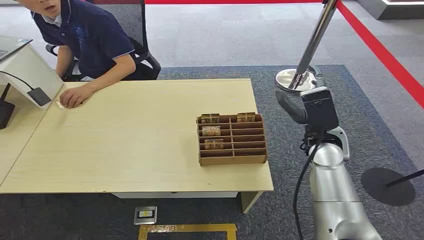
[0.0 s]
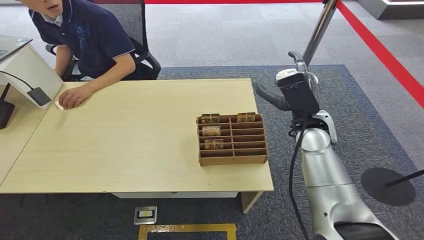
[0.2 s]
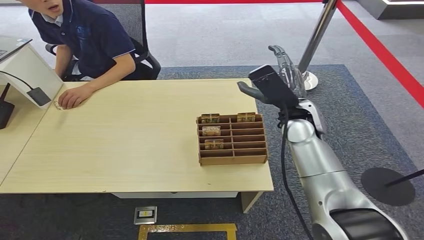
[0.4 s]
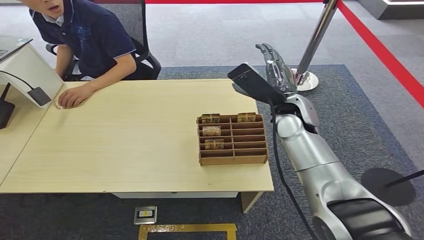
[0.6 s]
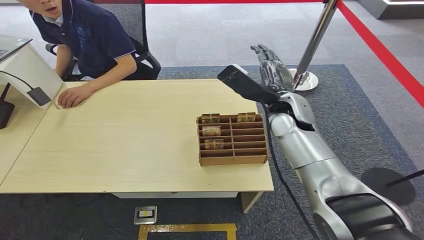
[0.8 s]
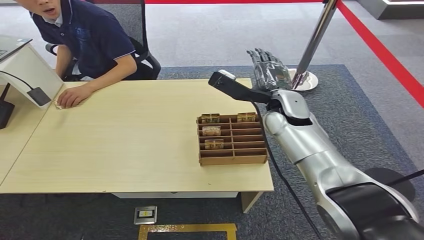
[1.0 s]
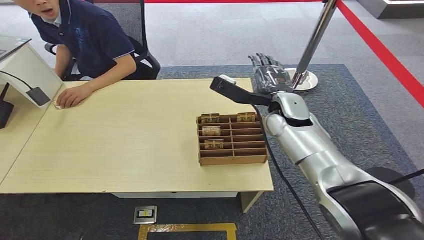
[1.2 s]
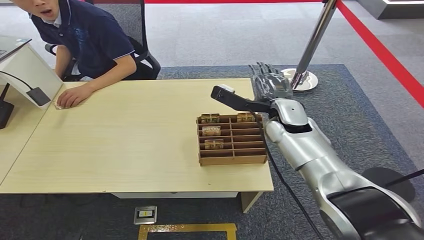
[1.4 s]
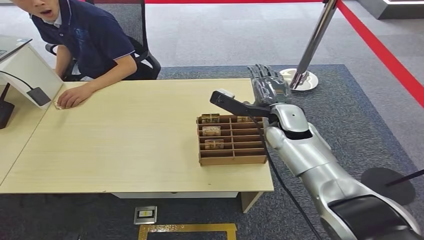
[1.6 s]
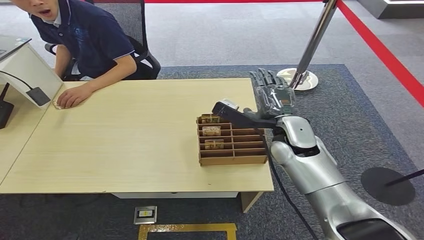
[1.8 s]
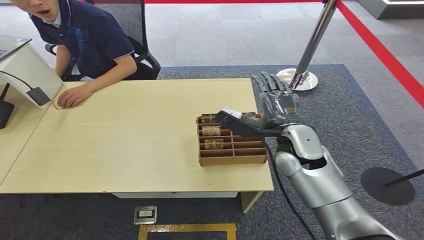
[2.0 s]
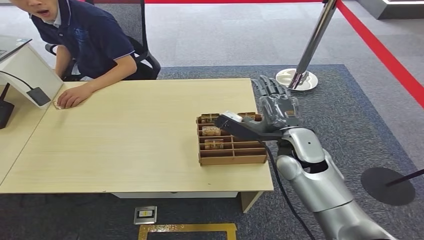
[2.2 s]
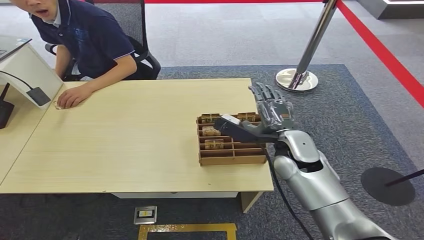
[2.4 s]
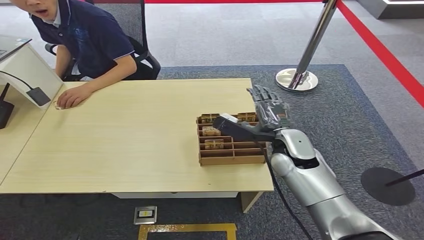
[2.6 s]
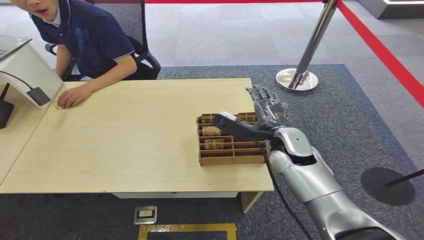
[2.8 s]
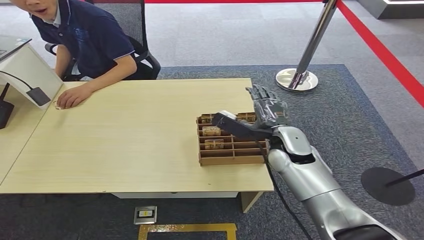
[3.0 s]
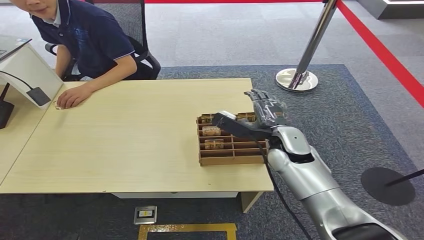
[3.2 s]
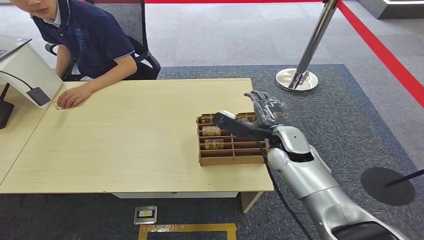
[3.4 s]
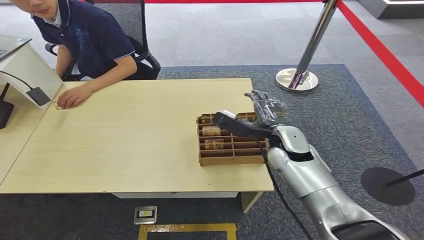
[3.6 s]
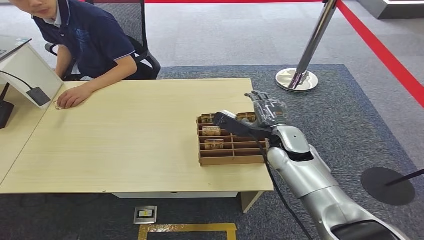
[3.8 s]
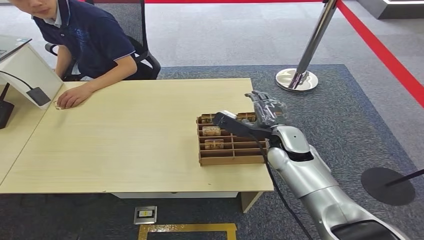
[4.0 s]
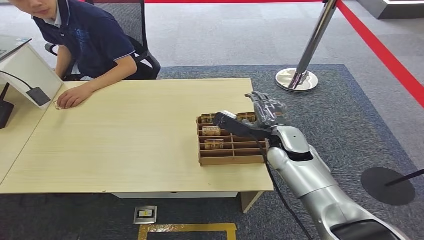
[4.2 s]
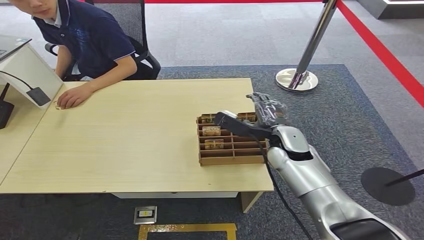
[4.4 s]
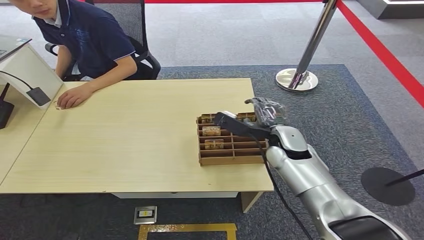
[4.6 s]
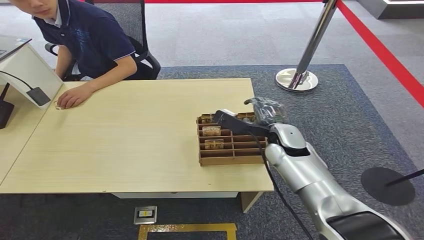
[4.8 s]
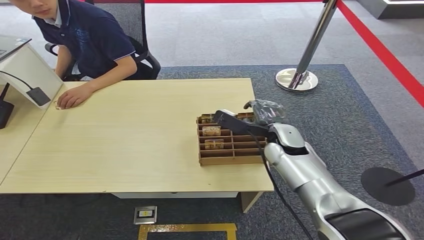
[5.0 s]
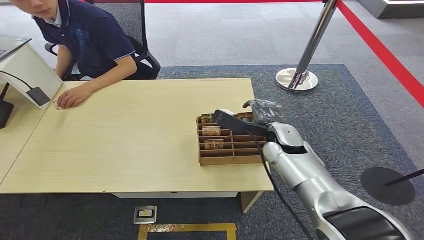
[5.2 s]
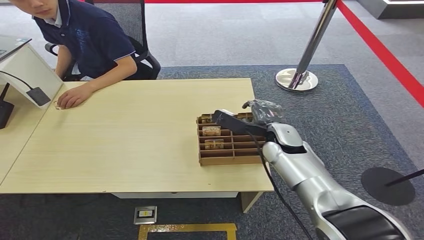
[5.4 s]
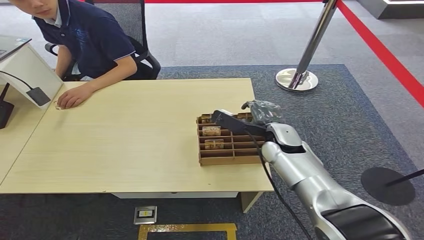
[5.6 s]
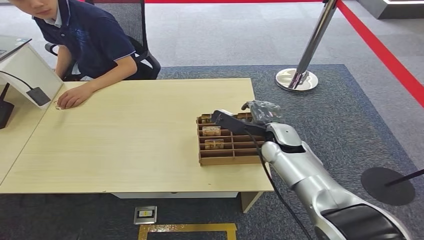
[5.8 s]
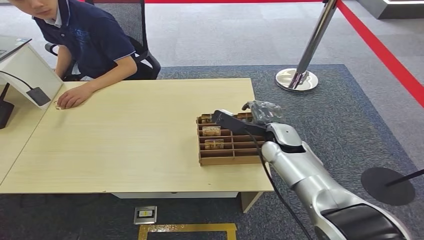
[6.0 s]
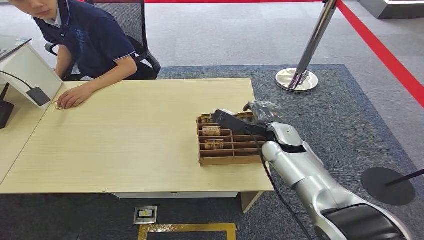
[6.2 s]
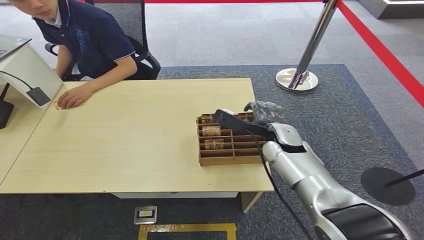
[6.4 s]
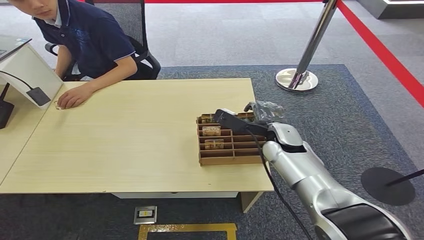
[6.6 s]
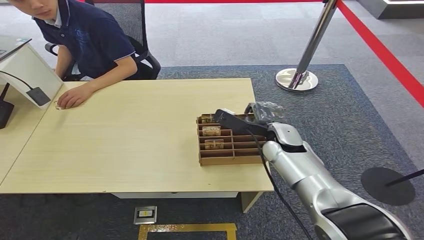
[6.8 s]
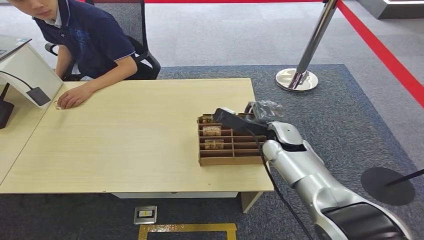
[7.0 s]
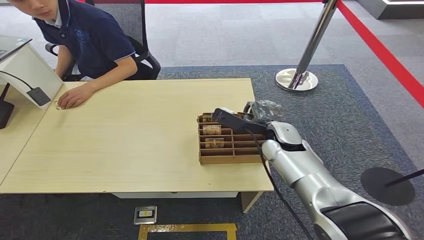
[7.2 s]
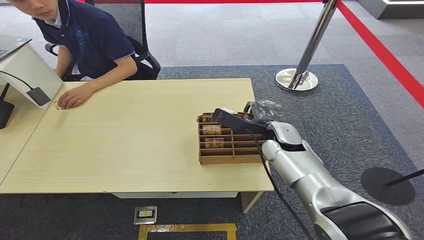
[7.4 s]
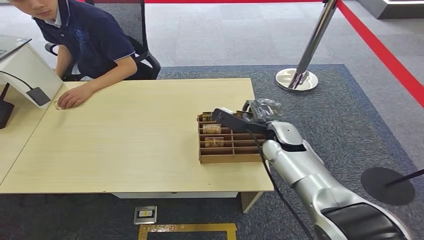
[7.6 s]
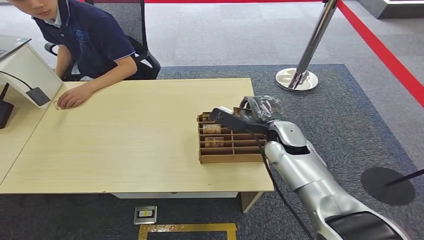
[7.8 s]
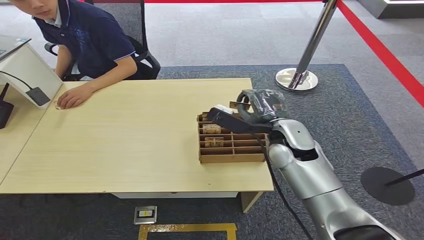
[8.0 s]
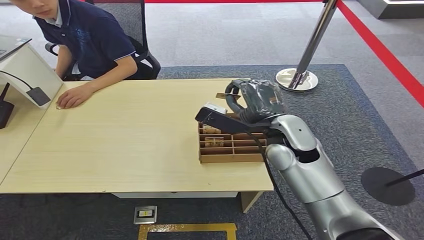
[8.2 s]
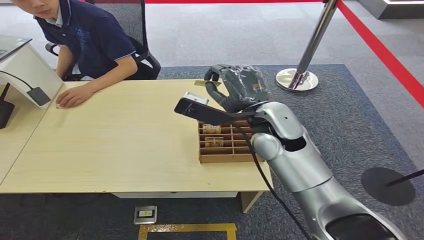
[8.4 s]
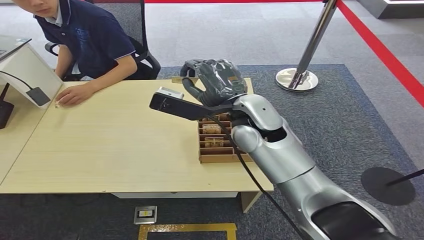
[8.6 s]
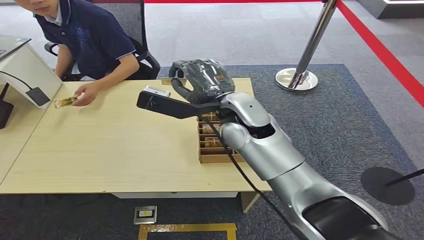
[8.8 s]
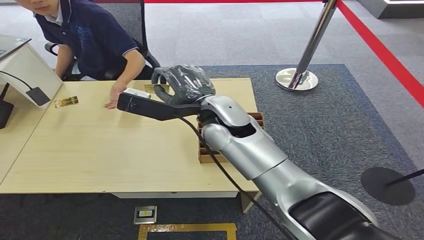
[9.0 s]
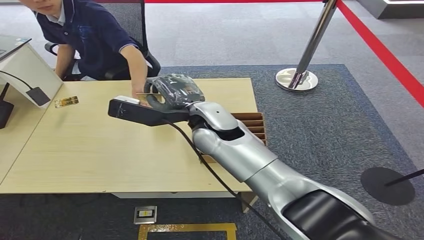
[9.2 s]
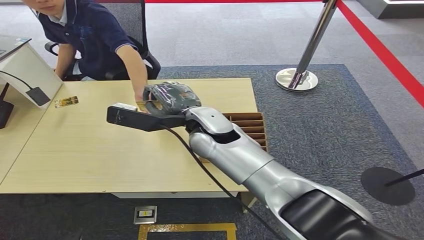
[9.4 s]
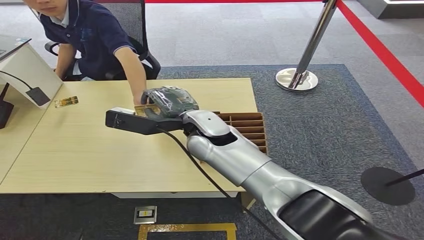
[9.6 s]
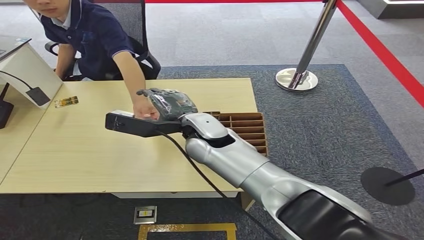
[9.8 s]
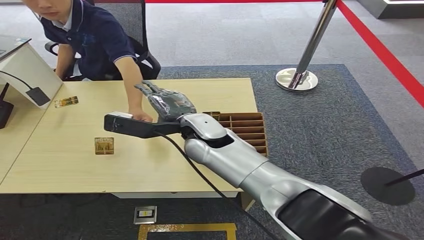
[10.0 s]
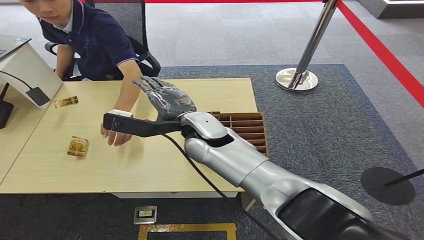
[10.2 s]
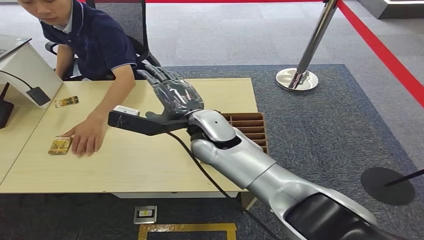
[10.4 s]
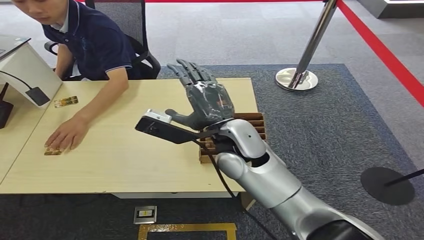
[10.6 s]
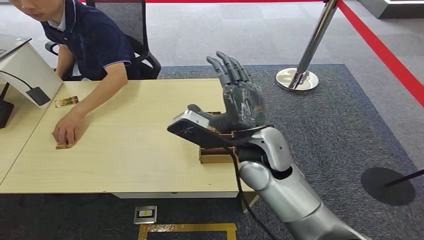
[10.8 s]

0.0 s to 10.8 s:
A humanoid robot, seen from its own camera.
Step, 0.0 to 8.0 s: Pick up the key card from the card box.
Step, 8.2 to 10.8 s: Hand the key card to the target.
1.6 to 3.0 s: The right hand ends up some 5 cm from where it was.
3.0 to 7.8 s: The hands make only small movements.
7.8 to 9.2 s: The right hand travels to the left and upward by some 20 cm.
